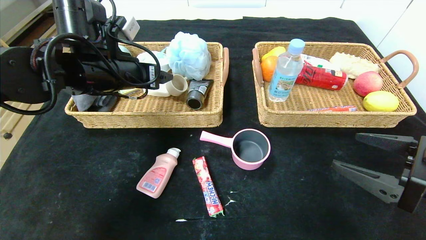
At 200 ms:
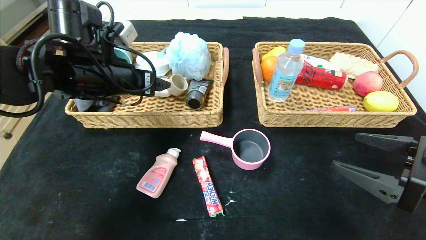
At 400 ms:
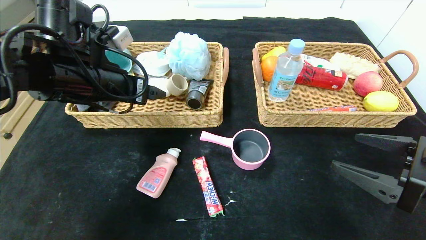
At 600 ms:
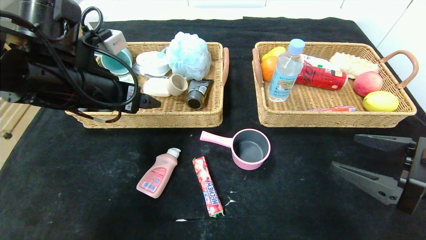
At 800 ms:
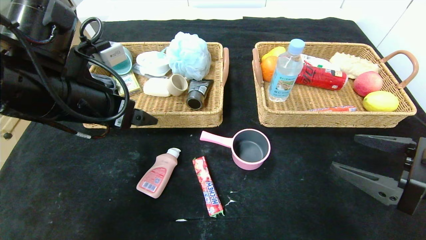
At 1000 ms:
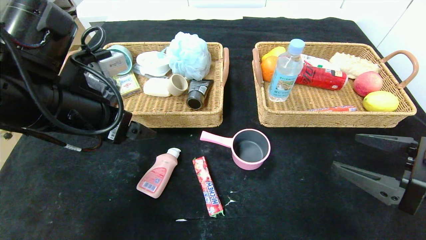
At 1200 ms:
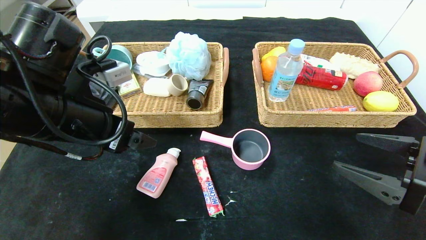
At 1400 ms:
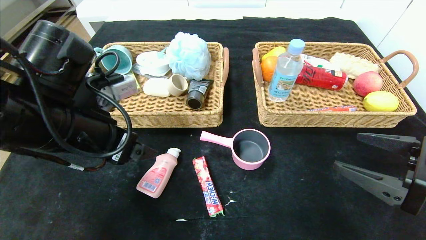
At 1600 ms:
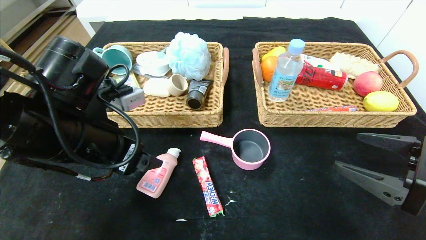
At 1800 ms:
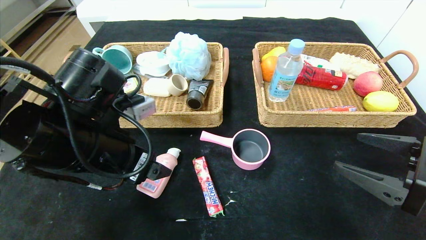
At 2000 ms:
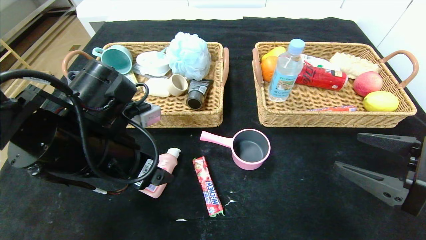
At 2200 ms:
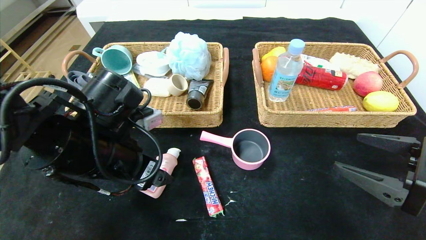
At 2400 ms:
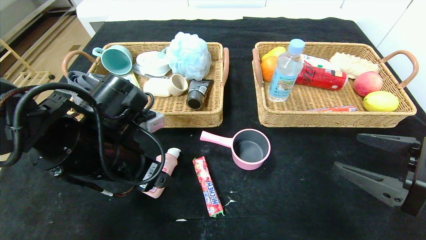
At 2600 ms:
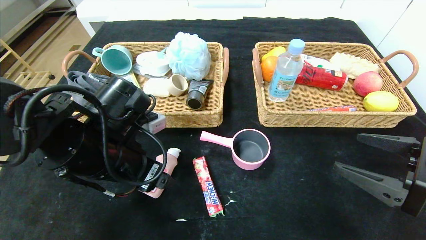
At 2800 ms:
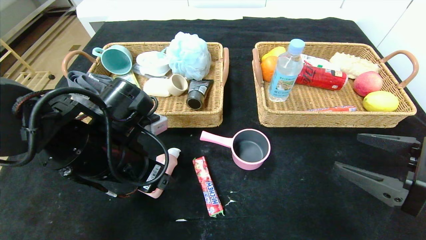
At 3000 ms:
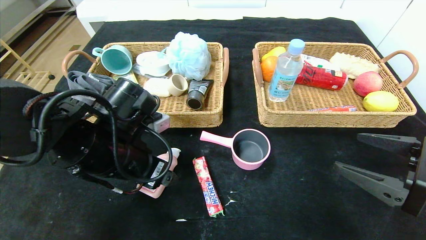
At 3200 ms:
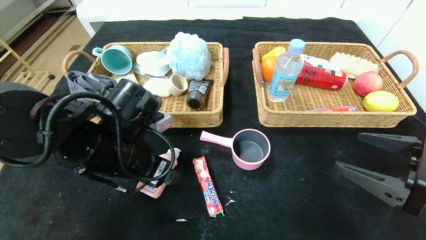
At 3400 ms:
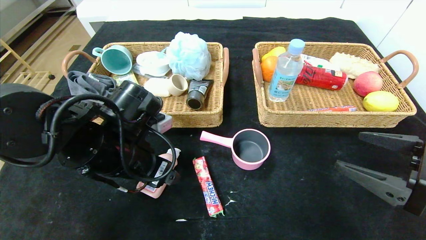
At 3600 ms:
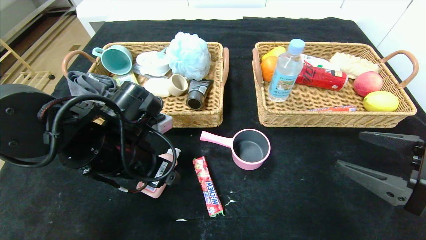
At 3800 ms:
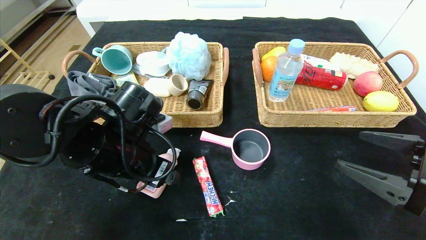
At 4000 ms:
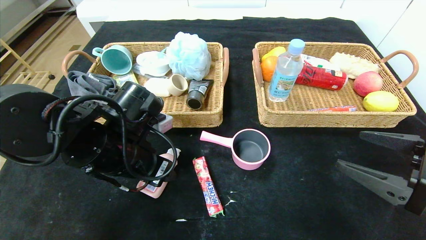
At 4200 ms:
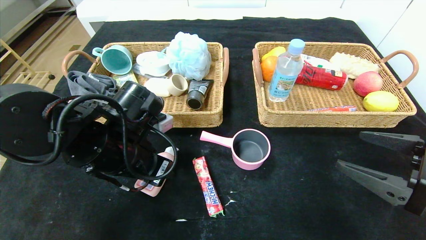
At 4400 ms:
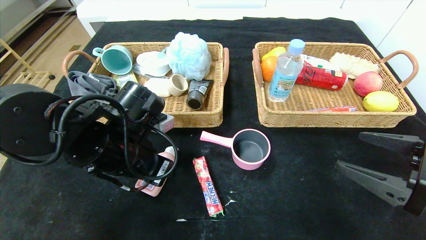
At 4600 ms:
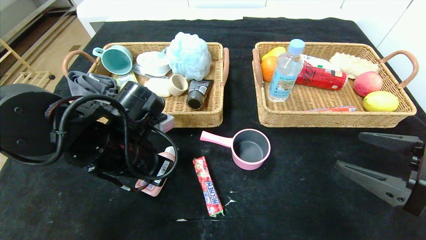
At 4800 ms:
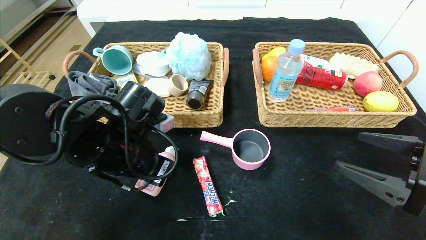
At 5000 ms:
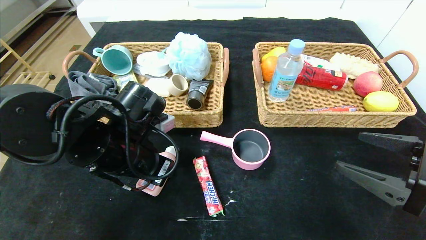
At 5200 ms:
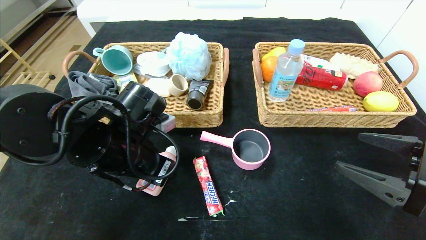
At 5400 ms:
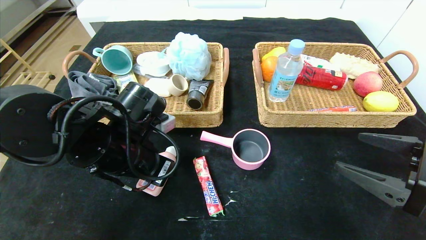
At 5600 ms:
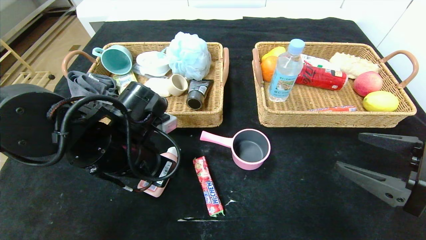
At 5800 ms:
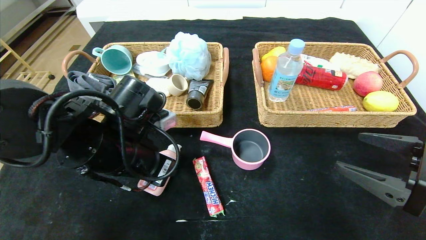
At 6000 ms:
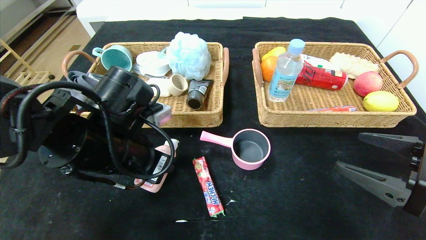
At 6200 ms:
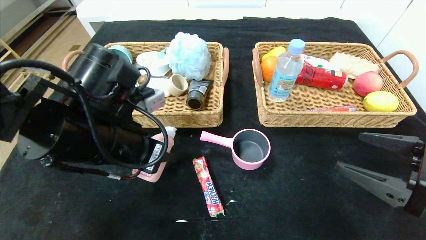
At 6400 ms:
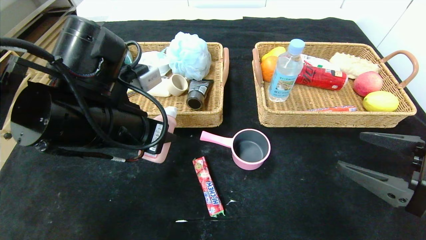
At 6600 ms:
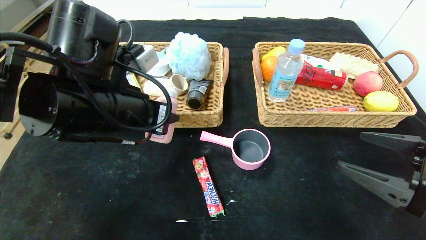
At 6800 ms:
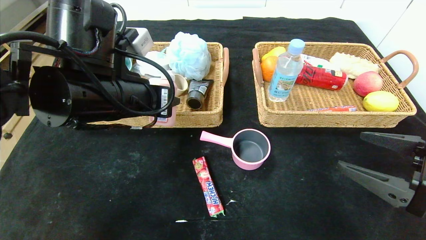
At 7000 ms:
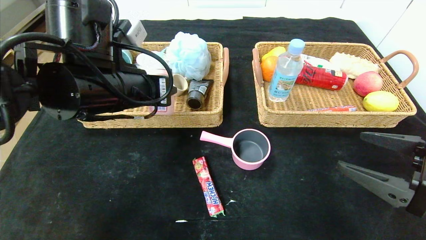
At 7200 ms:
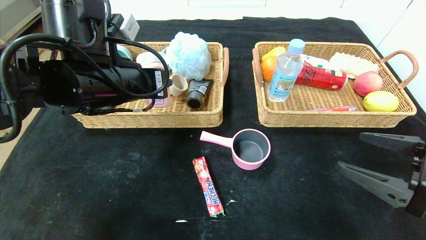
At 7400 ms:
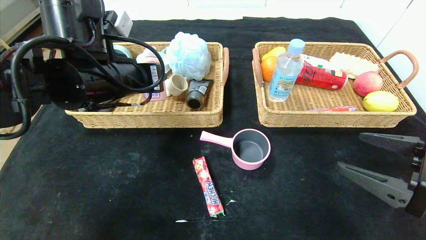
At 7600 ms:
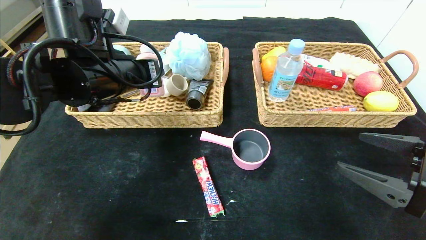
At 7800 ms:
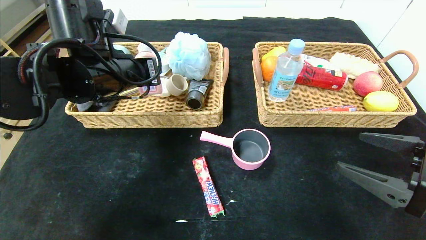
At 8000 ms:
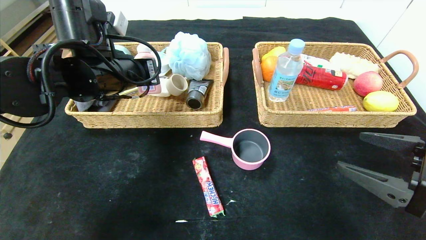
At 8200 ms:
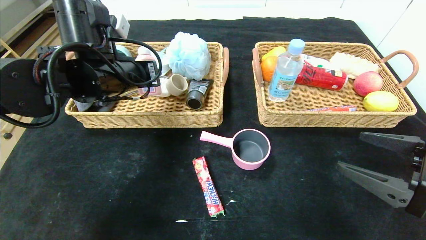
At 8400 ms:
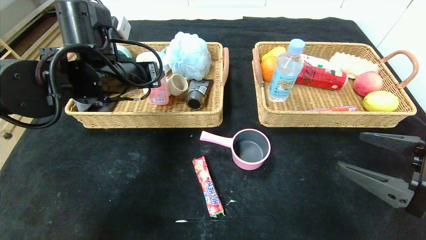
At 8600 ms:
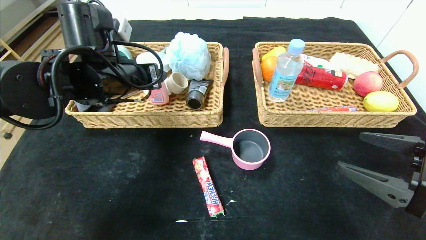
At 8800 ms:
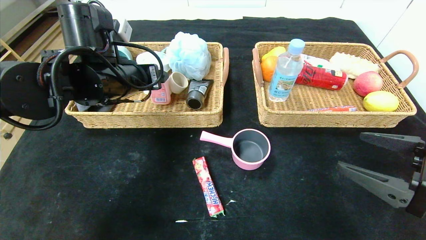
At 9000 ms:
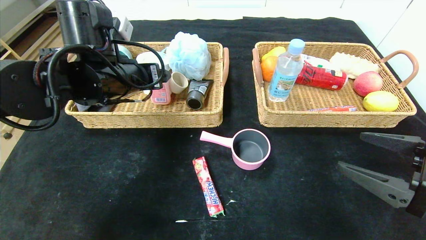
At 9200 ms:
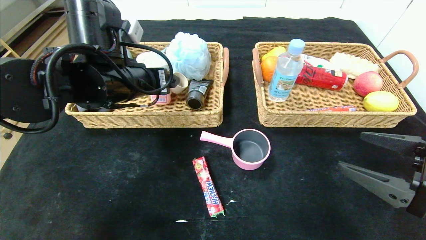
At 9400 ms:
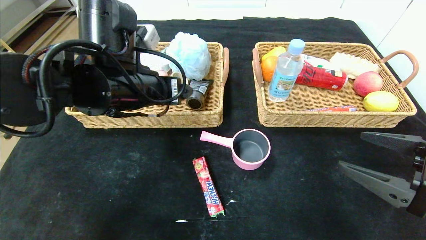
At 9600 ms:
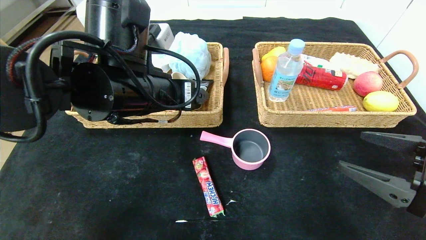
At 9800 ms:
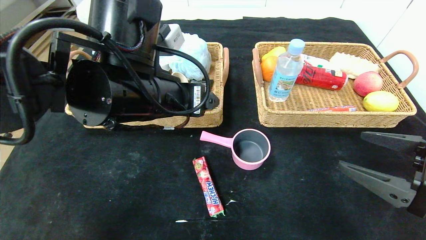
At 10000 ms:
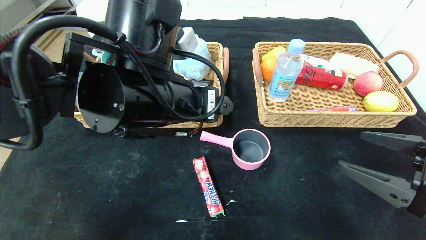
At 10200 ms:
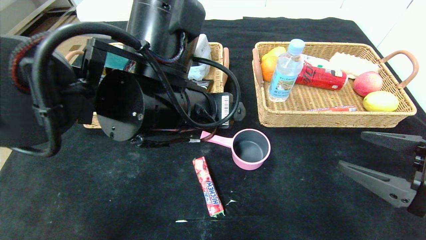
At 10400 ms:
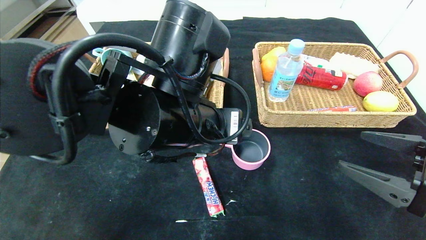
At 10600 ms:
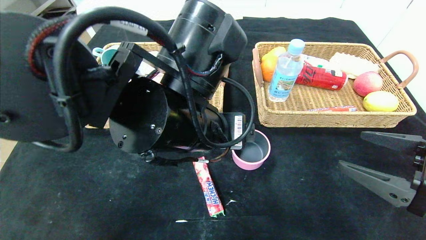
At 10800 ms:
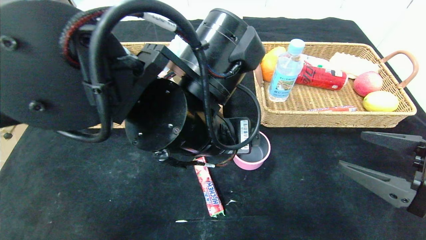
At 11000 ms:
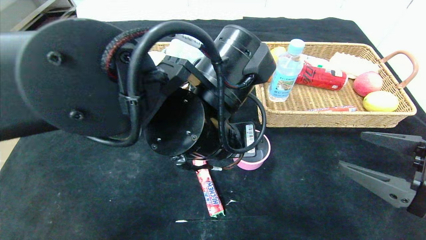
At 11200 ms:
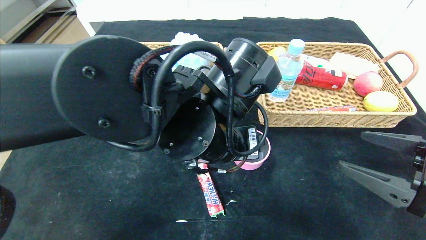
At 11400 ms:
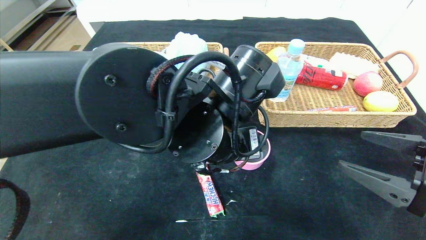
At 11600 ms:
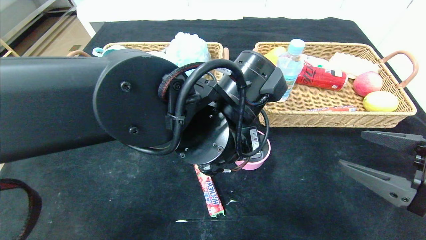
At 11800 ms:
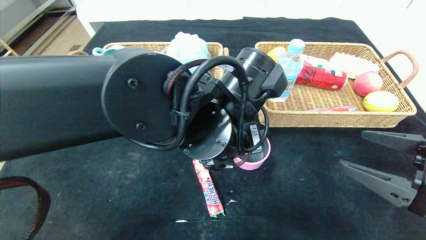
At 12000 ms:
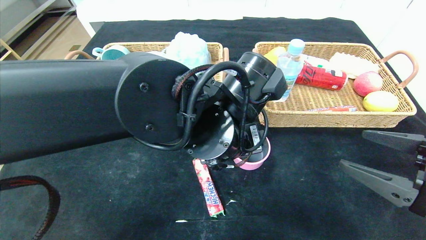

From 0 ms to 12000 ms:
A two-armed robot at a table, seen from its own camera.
Step, from 0 ms to 8600 ms: Grasp the detergent and put it in the left basket.
From 0 ms to 1600 ms: The left gripper travels backward by roughly 10 cm.
From 1600 ms to 3000 ms: The left gripper shifts by roughly 5 cm.
From 3000 ms to 4400 ms: The left gripper closes its fingers.
From 4400 ms to 6000 ms: The grippers move only a little.
From 6000 ms to 7600 ms: The left gripper moves upward and forward, approximately 10 cm.
From 7600 ms to 9000 ms: The left gripper opens its fingers.
From 9000 ms to 10400 ms: The left gripper is displaced to the right and backward by some 15 cm.
From 10400 ms to 12000 ms: The left gripper shifts by approximately 5 cm.

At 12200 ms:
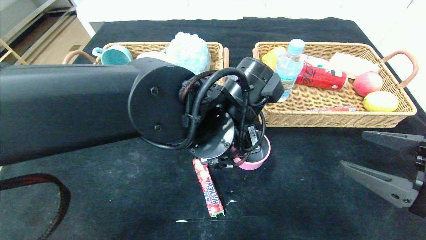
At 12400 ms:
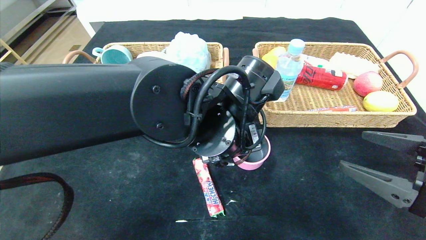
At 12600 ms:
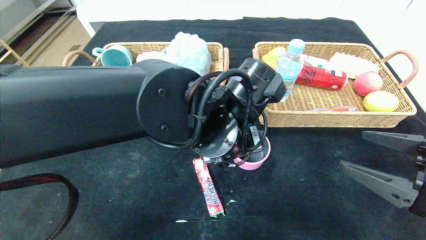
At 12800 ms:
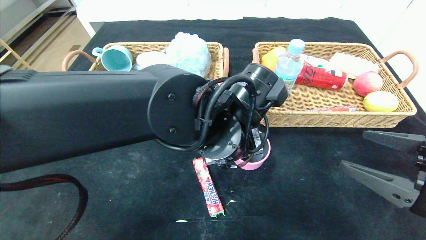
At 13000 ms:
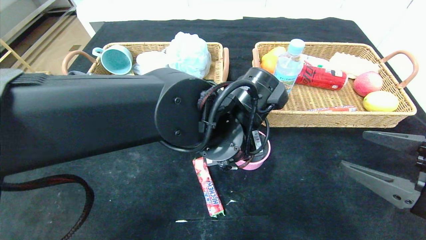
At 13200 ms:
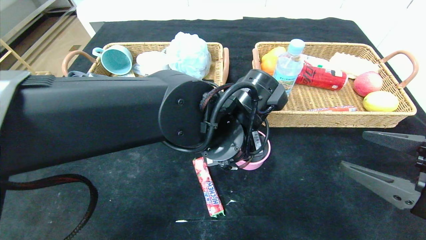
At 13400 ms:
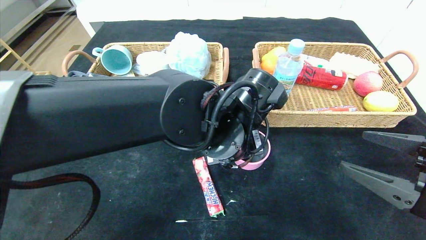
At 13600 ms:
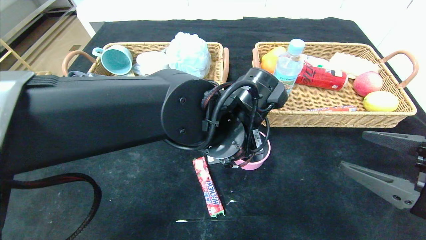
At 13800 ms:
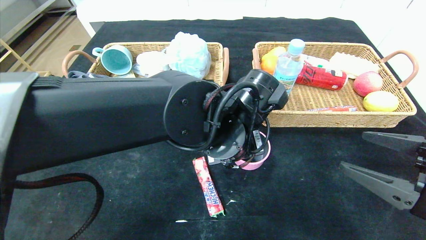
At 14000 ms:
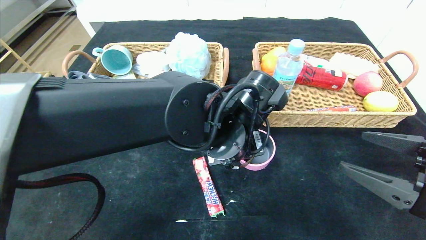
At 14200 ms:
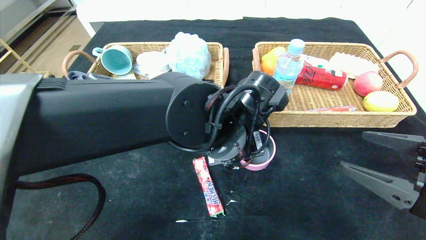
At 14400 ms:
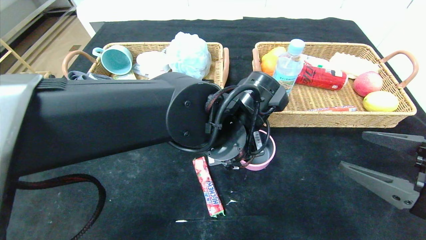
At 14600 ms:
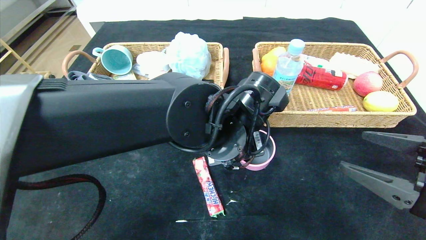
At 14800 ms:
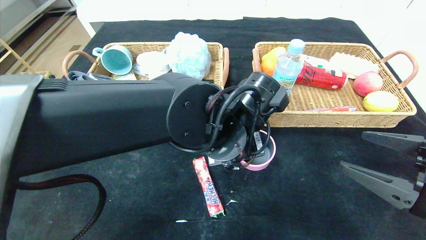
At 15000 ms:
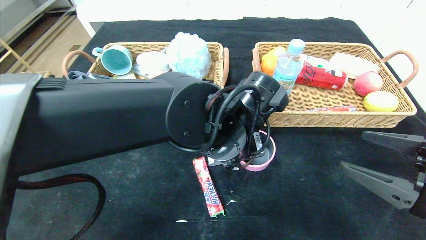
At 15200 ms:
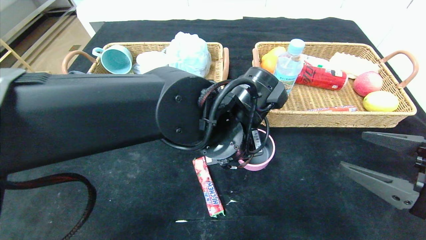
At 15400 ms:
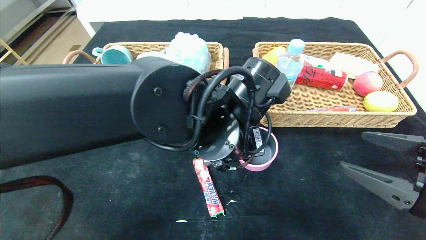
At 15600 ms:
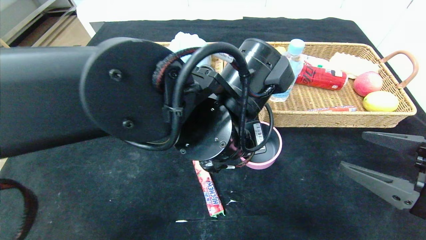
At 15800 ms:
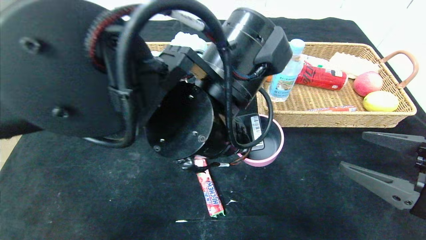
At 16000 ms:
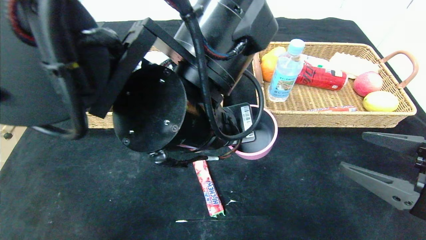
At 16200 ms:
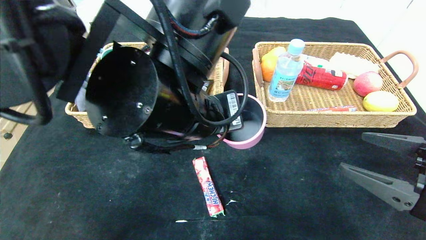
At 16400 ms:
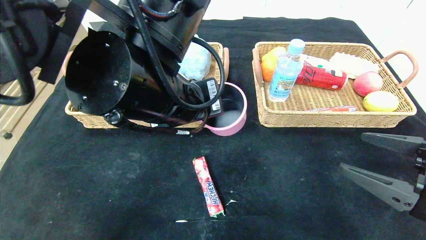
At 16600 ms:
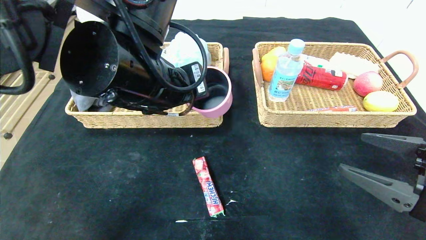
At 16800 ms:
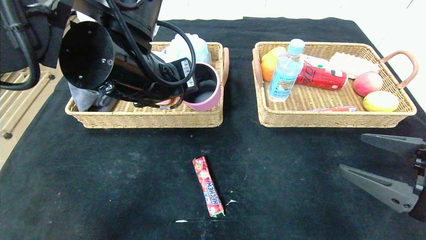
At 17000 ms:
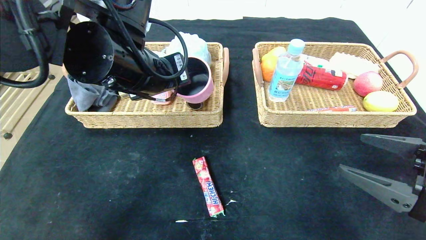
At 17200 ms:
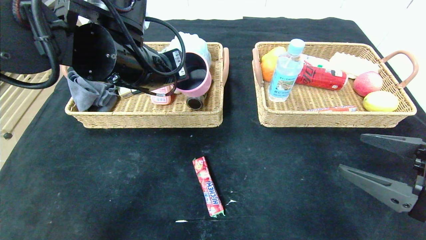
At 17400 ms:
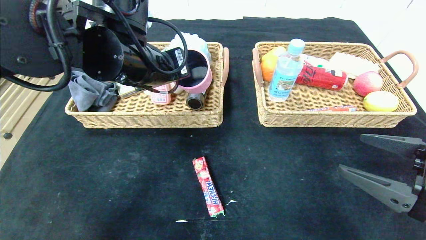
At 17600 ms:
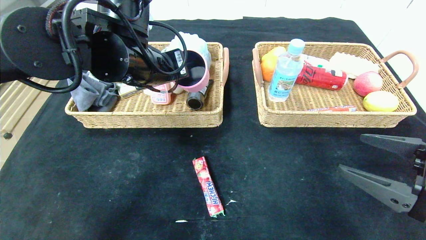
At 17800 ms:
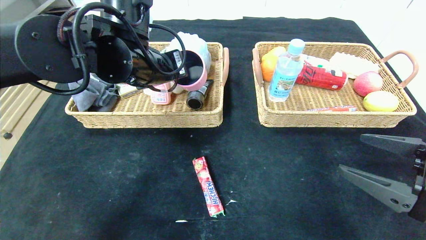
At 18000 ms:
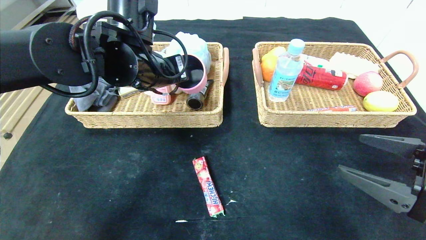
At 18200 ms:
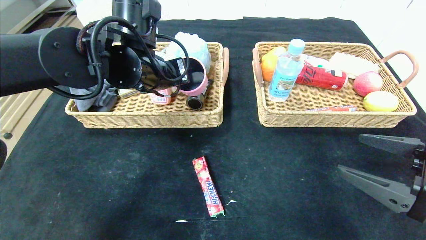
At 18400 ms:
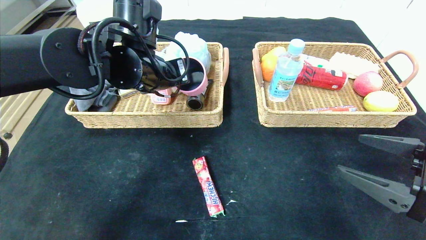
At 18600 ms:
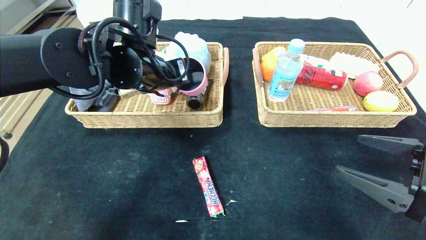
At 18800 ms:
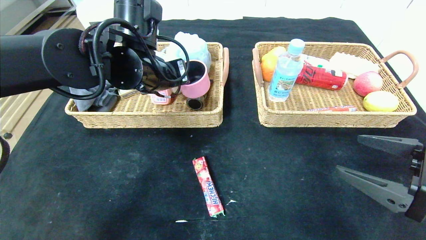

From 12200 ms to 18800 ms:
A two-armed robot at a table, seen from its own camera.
From 12200 ms to 13800 ms: The left gripper closes up.
From 13800 ms to 15400 ms: The left gripper closes its fingers.
From 15400 ms to 17200 ms: The left gripper goes some 15 cm to the left, upward and forward.
From 17200 ms to 18800 ms: The left gripper changes place by some 5 cm.
